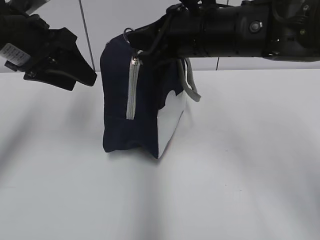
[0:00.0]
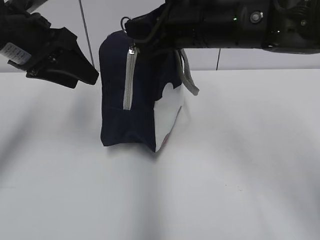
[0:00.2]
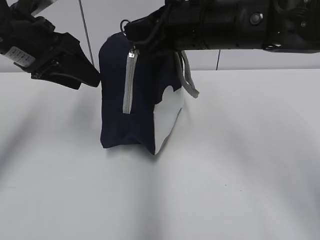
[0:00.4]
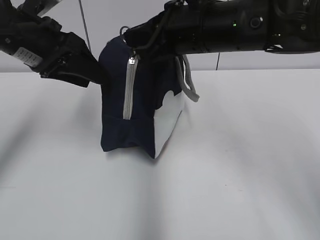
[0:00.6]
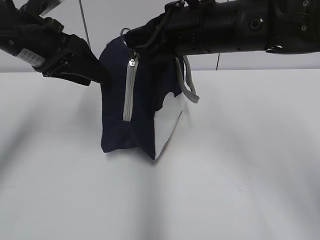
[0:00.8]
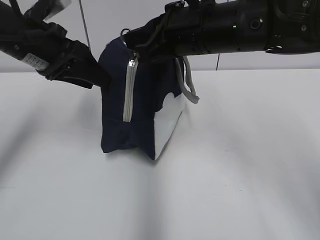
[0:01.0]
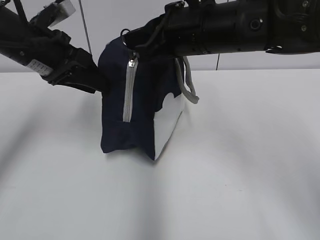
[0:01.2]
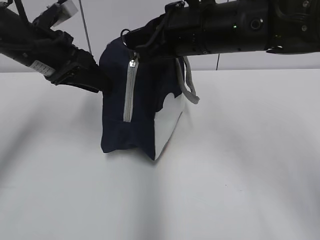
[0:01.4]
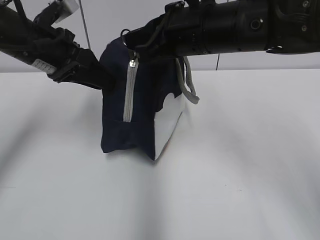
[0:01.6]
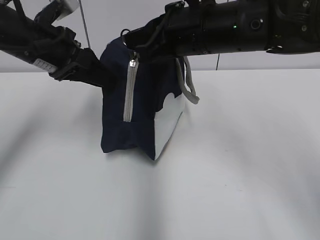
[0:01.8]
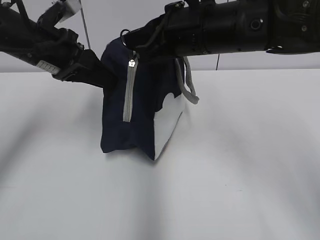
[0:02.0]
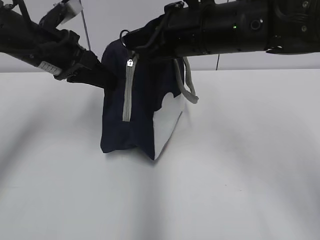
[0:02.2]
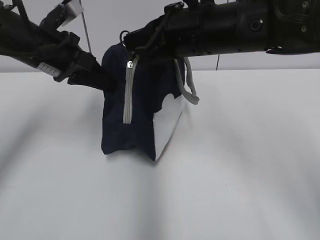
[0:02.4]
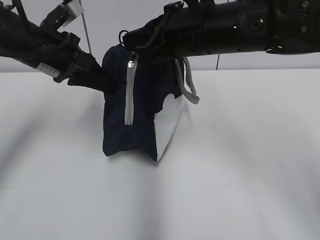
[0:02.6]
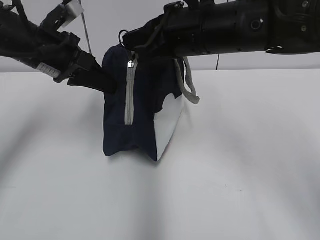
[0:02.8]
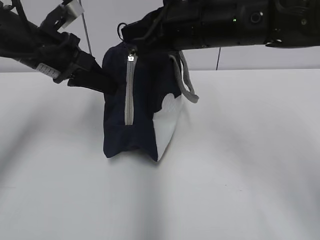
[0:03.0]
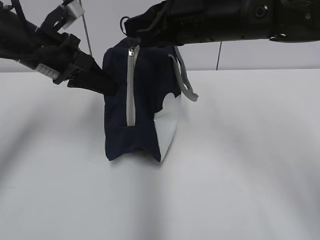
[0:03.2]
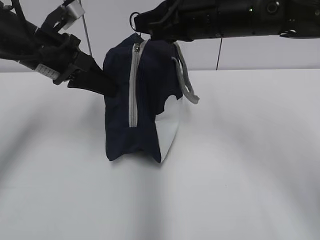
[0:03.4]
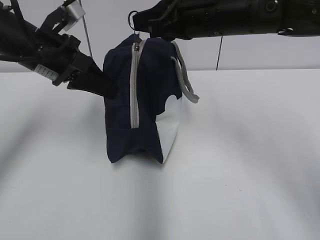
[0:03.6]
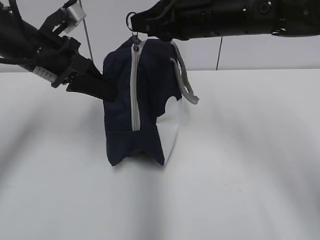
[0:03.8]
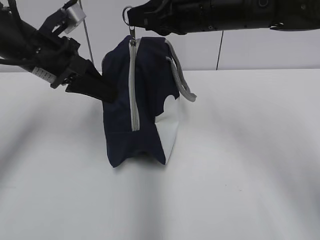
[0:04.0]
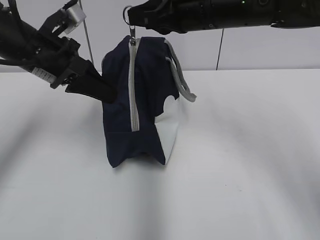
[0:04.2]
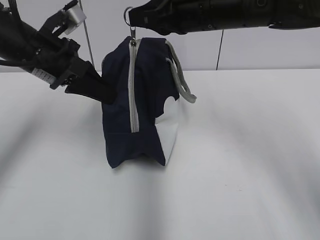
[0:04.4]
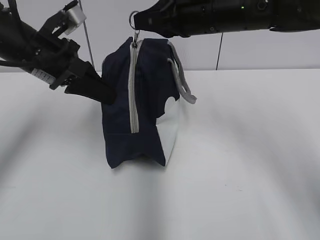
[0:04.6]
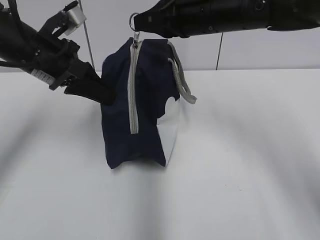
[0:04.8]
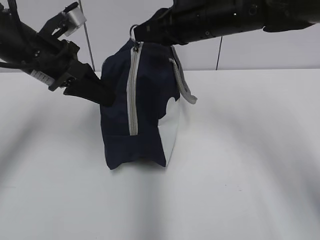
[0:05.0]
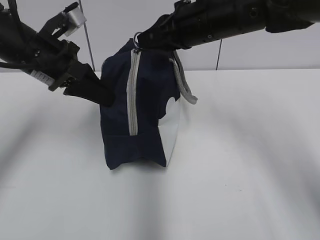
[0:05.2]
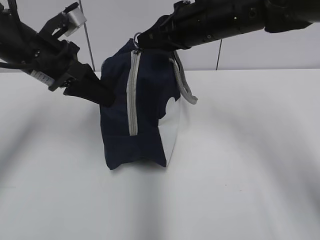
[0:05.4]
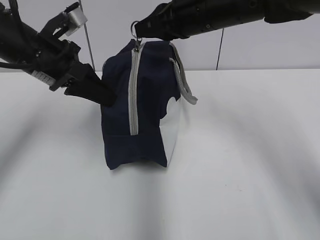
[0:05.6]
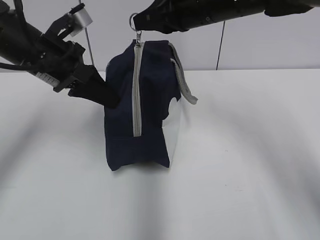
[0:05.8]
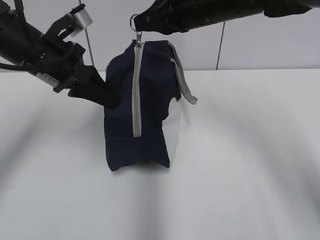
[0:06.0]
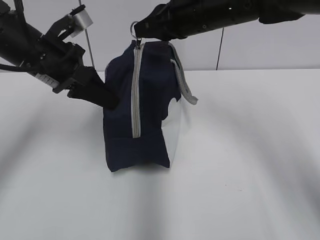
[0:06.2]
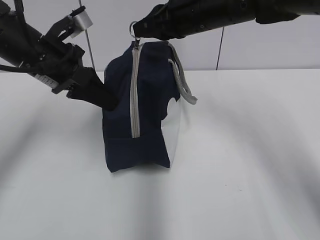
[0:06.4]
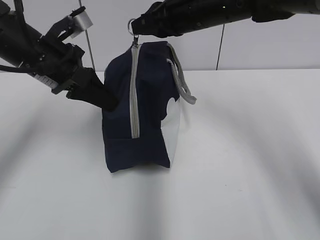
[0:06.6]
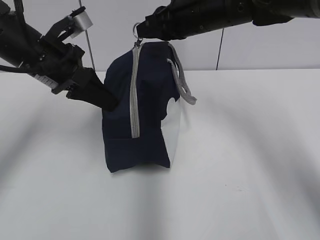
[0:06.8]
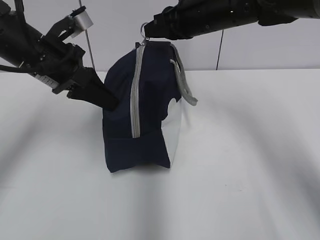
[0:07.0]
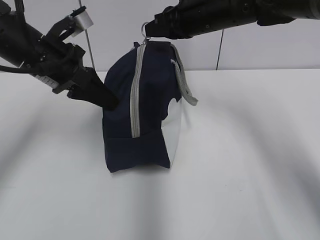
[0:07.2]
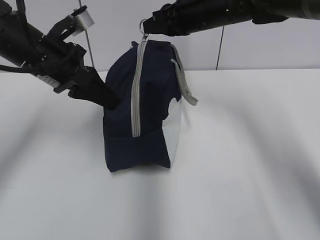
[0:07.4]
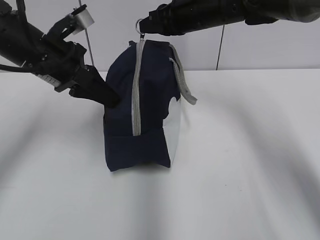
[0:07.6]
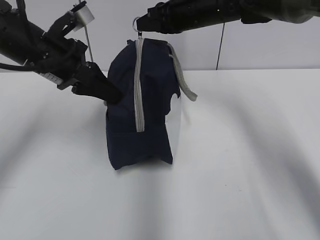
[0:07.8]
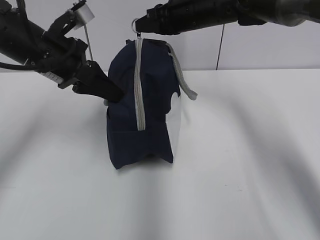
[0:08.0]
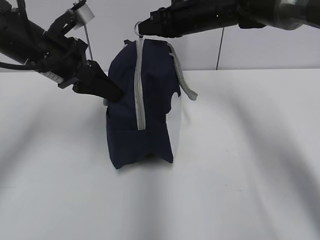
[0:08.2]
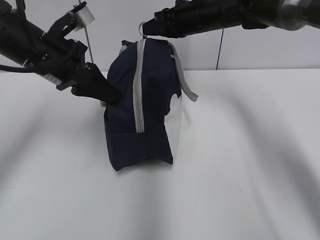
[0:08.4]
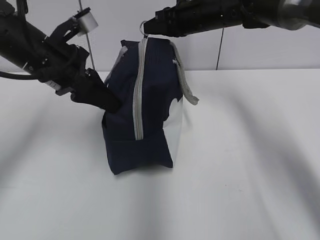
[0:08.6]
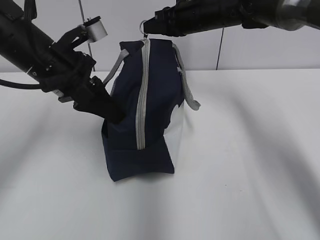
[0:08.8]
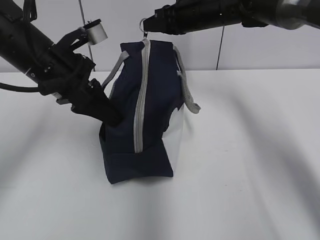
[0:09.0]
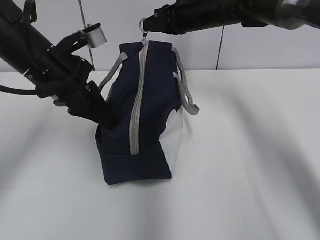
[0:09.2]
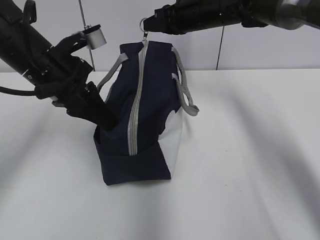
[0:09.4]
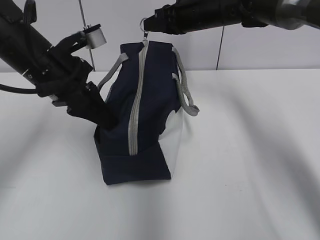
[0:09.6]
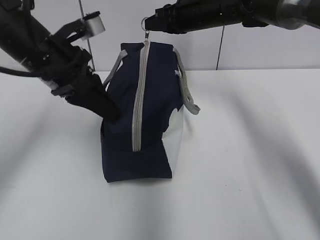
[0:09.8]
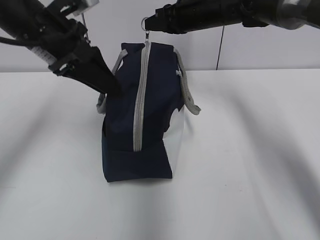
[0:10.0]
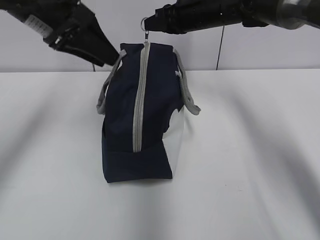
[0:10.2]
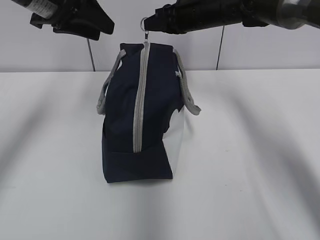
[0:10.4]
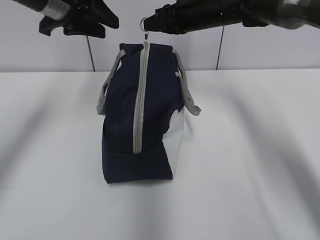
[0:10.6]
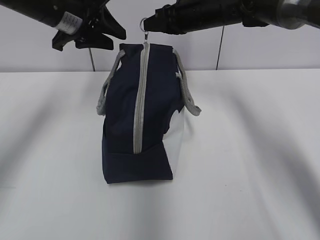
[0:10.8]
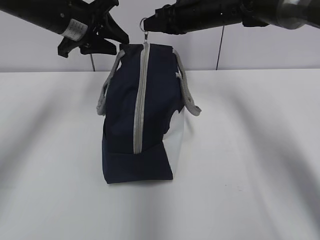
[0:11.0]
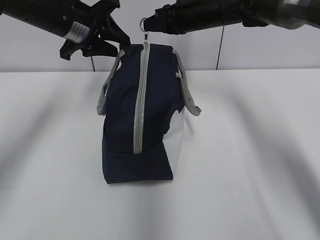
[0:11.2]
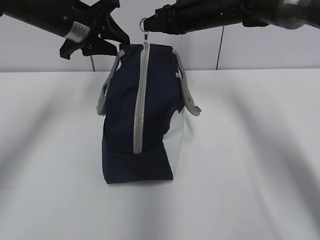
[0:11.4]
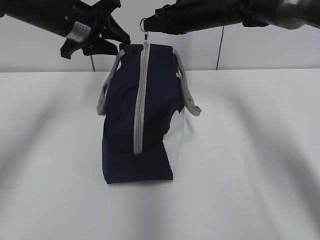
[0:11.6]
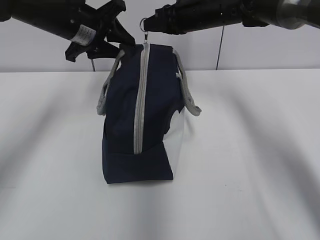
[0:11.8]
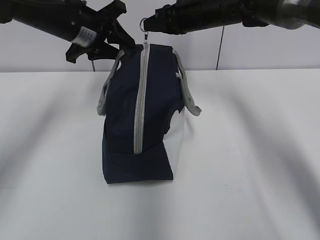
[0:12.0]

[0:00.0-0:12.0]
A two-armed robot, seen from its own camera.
Step, 0:00.0 to 0:09.8: Grab the lunch bag with your left hand.
0:00.0 to 0:01.6: The grippers move only a little.
0:01.6 to 0:03.0: The left gripper closes up.
0:03.0 to 0:04.4: There are only small adjustments of the grippers.
0:04.4 to 0:06.0: The grippers make only small movements.
0:06.0 to 0:07.6: The right gripper heads forward, covering roughly 5 cm.
0:07.6 to 0:09.0: There are only small adjustments of the grippers.
0:09.0 to 0:10.4: The left gripper is displaced upward by roughly 10 cm, and opens.
0:10.4 to 0:12.0: The left gripper heads downward and forward, covering approximately 10 cm.

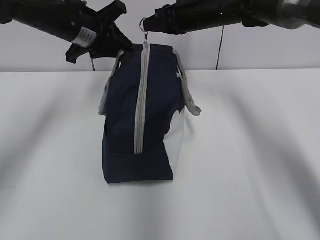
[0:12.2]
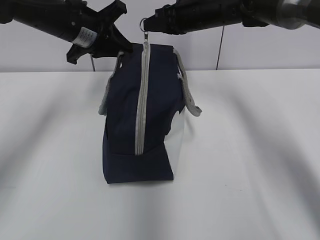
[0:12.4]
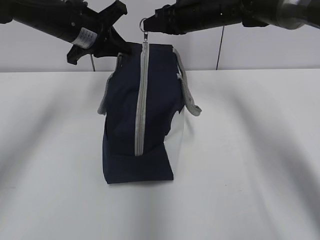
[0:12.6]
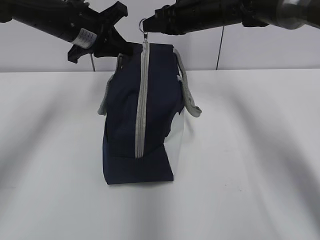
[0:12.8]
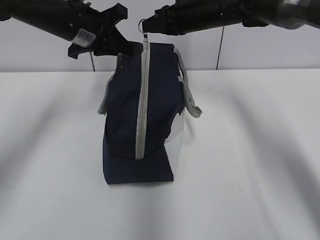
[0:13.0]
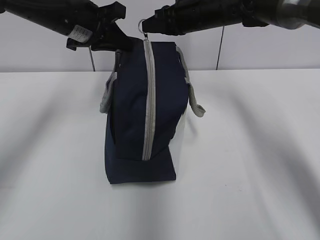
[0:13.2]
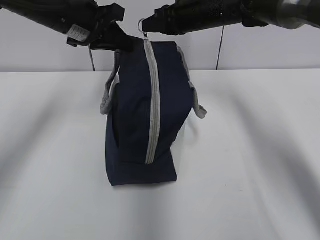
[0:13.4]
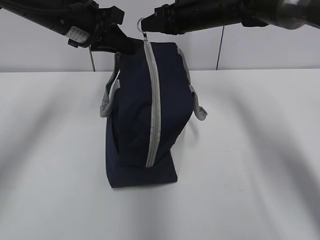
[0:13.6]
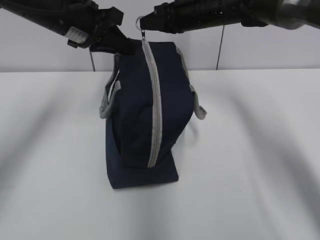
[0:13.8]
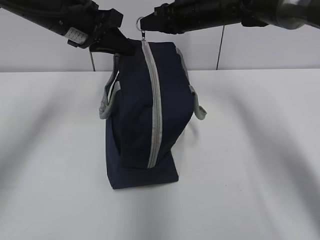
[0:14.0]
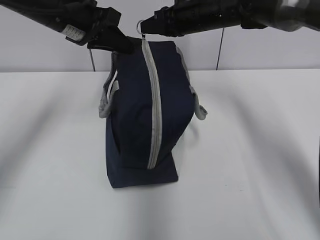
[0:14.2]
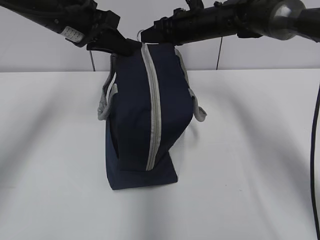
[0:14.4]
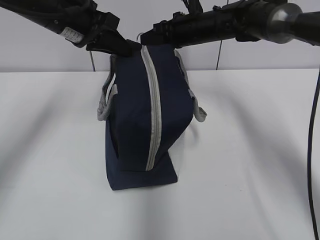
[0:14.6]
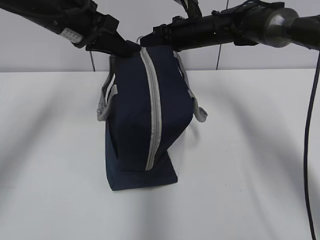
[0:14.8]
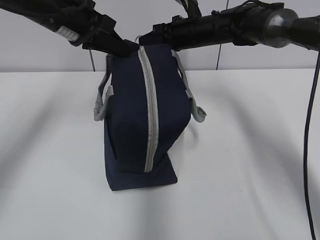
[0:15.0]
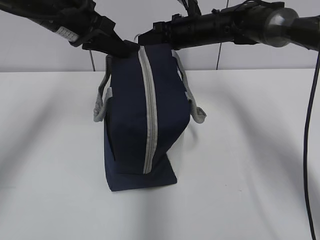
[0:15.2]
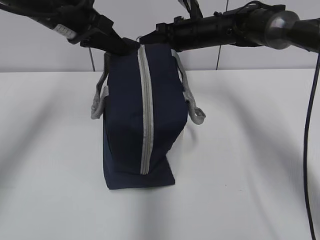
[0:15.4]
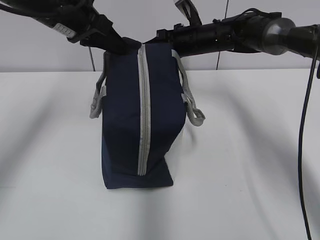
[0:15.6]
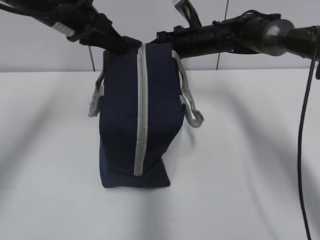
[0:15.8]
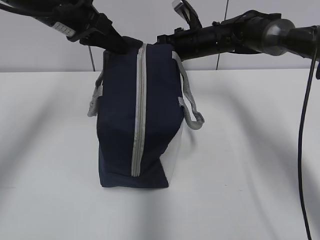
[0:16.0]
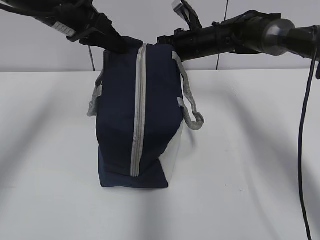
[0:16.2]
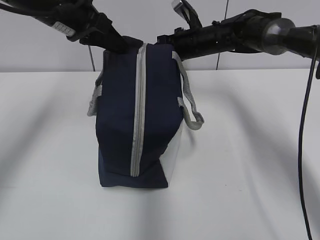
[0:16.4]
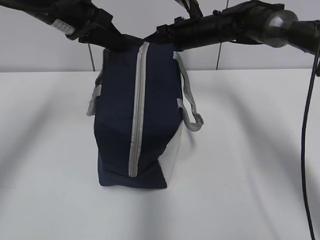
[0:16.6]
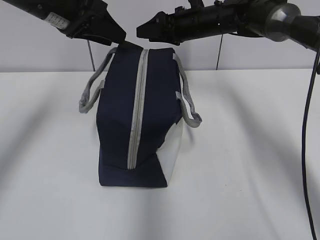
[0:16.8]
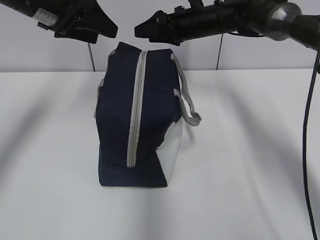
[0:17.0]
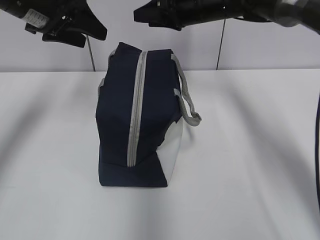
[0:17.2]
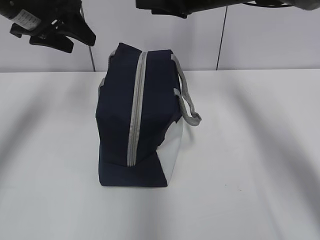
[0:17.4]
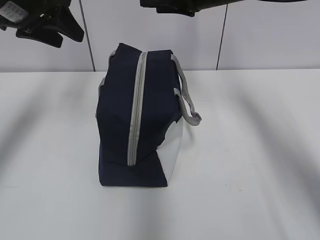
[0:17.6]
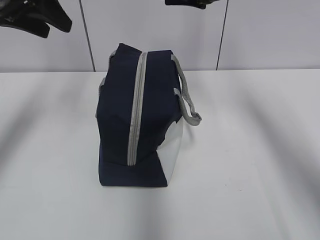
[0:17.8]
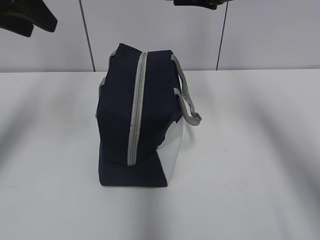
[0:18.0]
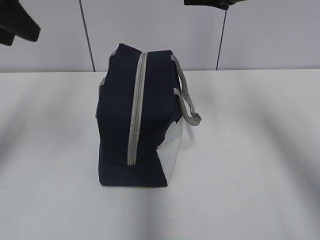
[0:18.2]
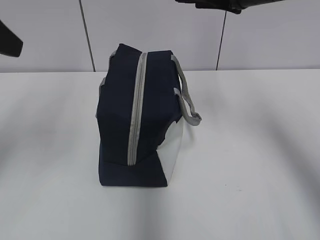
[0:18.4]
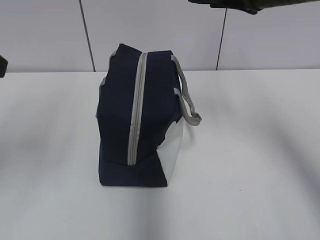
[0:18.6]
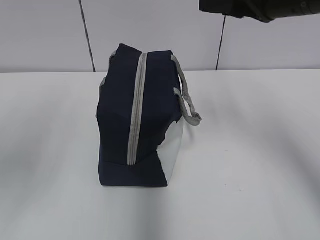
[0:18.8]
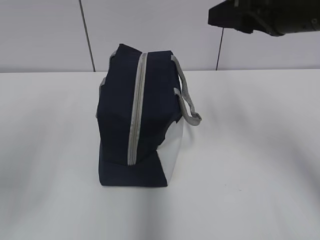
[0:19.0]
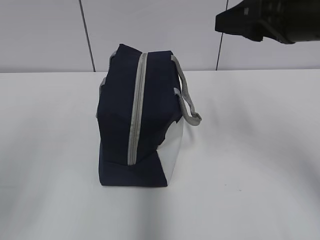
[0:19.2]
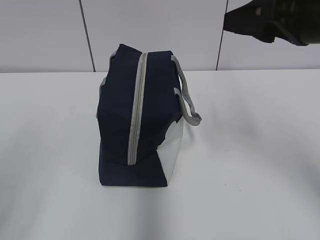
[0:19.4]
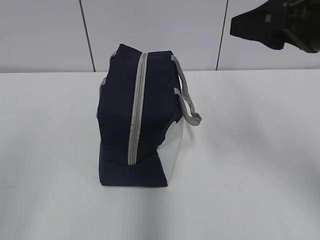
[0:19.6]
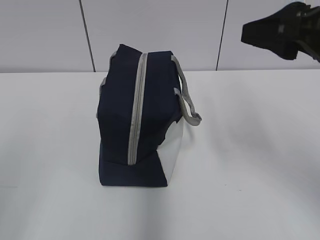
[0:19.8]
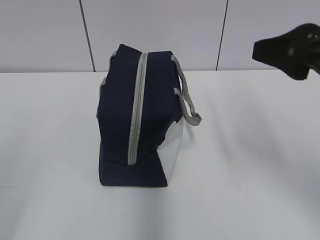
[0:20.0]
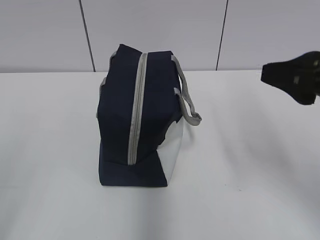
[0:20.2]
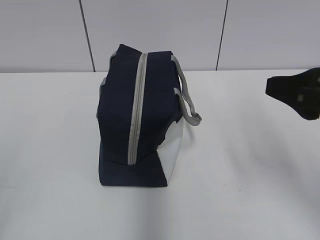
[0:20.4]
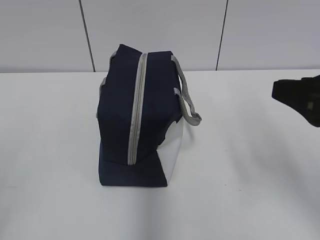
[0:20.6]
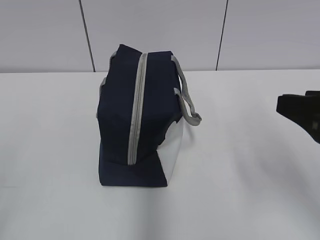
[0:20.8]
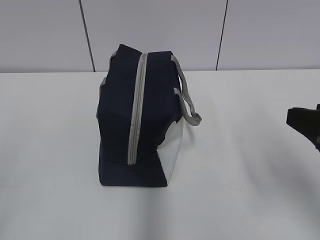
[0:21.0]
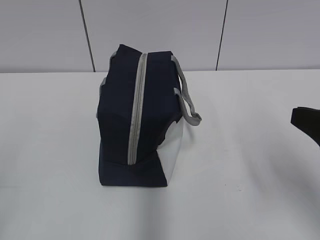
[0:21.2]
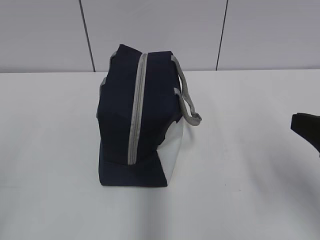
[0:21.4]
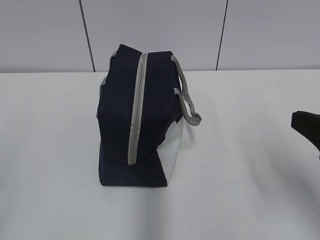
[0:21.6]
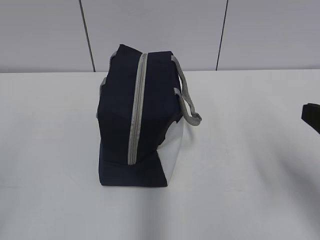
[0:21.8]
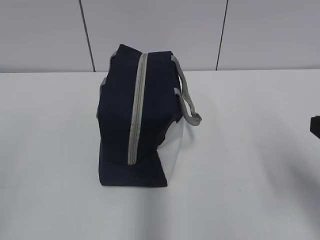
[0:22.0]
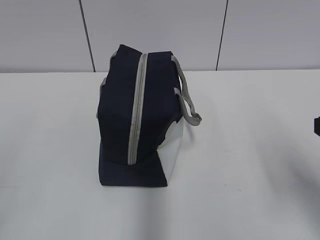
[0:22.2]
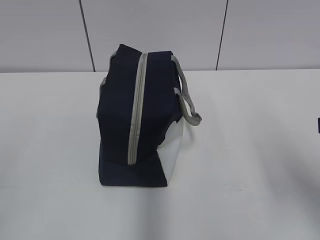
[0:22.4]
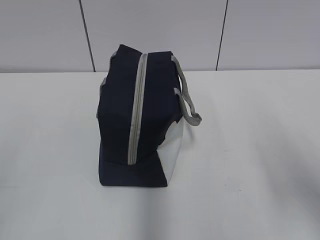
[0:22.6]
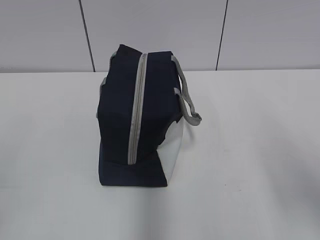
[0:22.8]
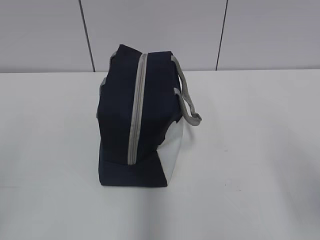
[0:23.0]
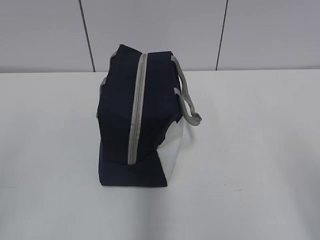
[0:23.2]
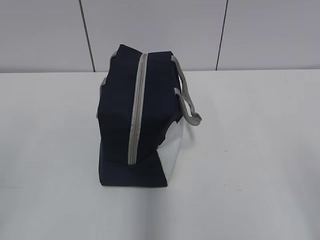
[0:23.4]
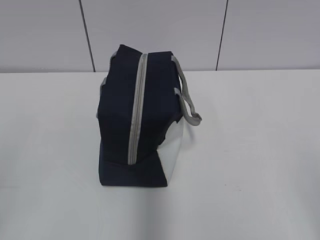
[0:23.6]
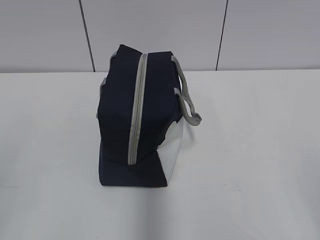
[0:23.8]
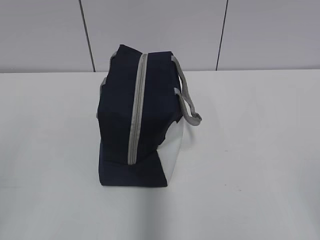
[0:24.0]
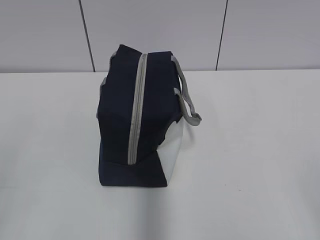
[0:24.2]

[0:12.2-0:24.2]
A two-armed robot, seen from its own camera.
Step, 0:12.2 to 0:16.4: Pull the zipper with your right hand.
0:12.2 to 0:13.8: The left gripper closes its fingers.
0:13.8 to 0:15.2: The grippers make only small movements.
0:15.2 to 0:16.6: The grippers move only a little.
0:16.6 to 0:18.2: The left gripper shifts roughly 15 cm backward, to the left and upward, and opens its fingers; the right gripper travels backward and upward by approximately 20 cm, and opens up.
0:18.2 to 0:19.8: The left gripper heads backward, covering some 25 cm. The right gripper heads backward, covering roughly 15 cm.
0:19.8 to 0:21.2: The right gripper shifts approximately 10 cm backward and downward.
0:21.2 to 0:22.6: There are only small adjustments of the grippers.
0:22.6 to 0:24.2: The right gripper is displaced backward by roughly 15 cm.
